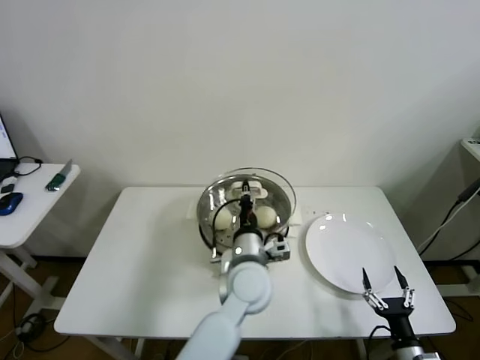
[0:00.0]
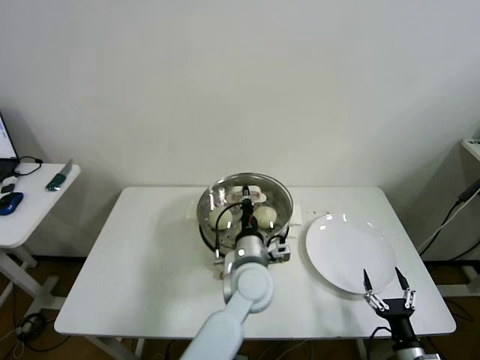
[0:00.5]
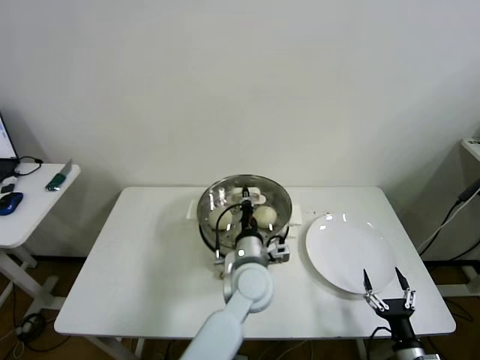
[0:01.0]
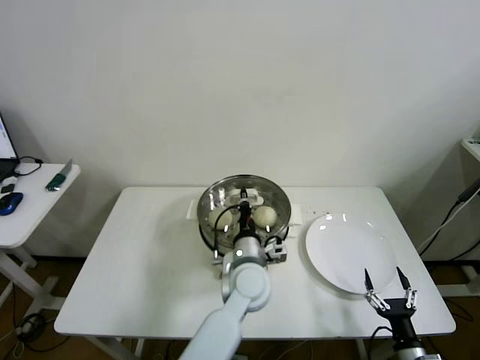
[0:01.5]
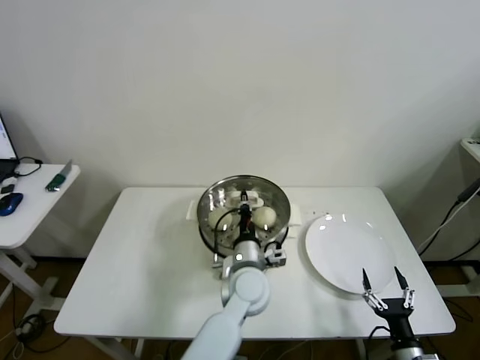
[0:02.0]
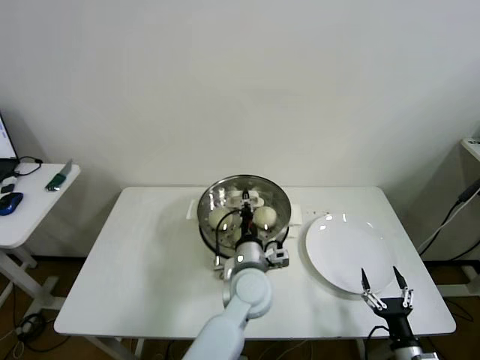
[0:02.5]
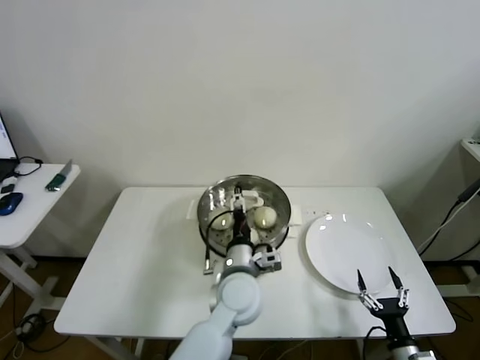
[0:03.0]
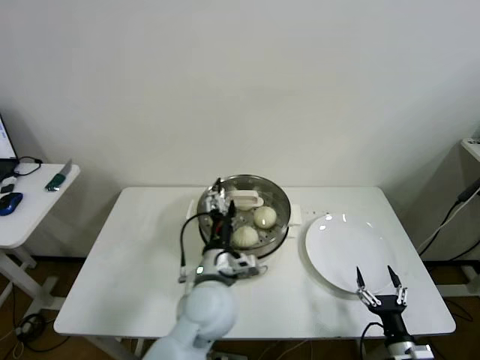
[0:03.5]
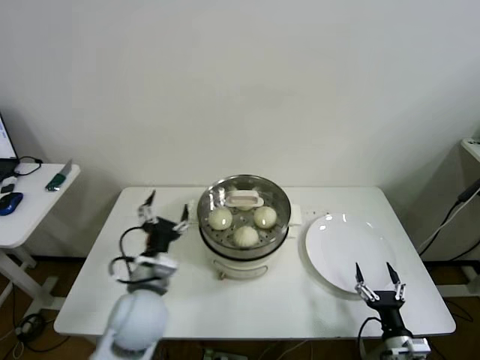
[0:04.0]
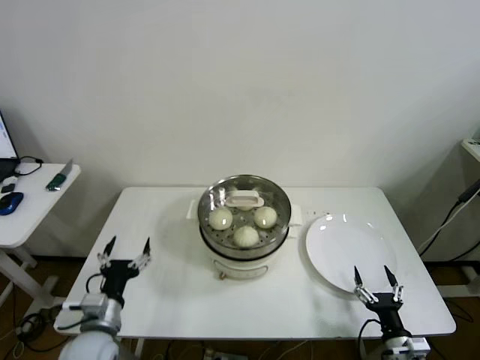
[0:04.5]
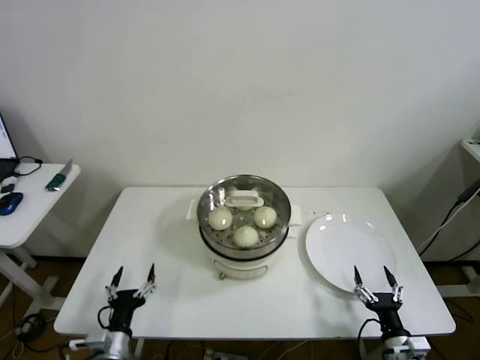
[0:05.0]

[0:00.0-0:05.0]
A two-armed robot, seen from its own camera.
Step, 0.0 to 2.0 s: Place the pot lid on the steamer with left gripper.
0.0 to 2.5 s: The grippers move only a little.
2.5 to 5.0 s: The left gripper goes roughly 35 cm to the left and backward, and opens.

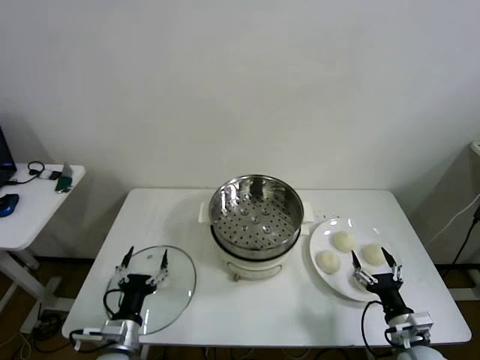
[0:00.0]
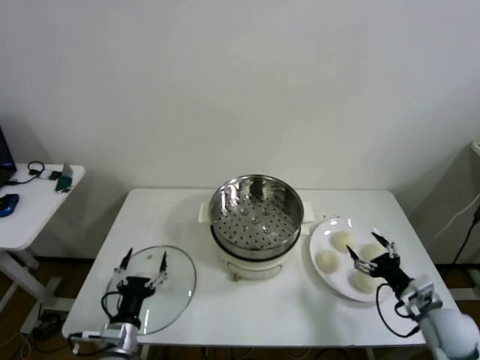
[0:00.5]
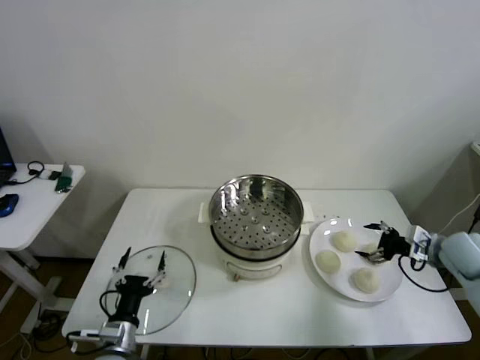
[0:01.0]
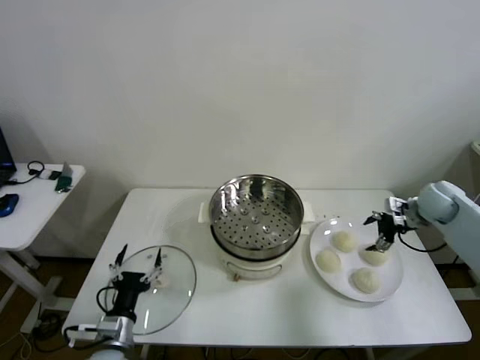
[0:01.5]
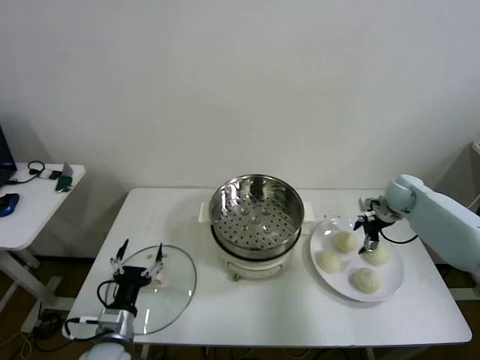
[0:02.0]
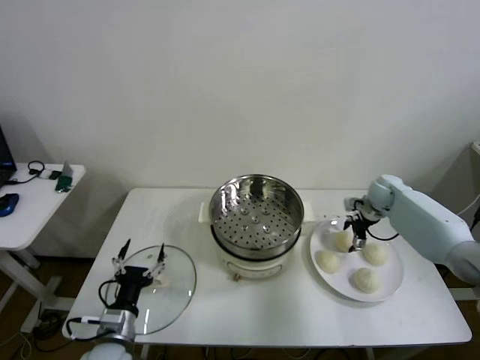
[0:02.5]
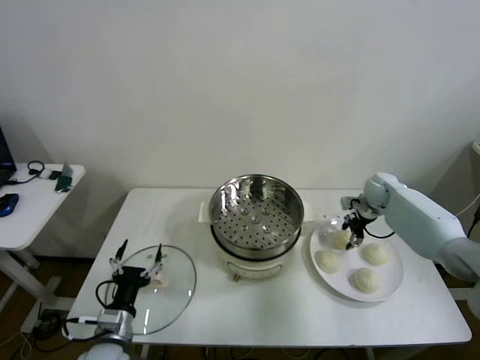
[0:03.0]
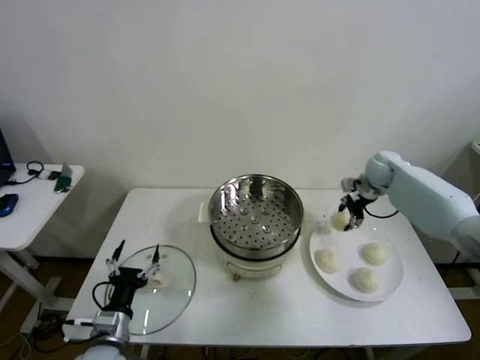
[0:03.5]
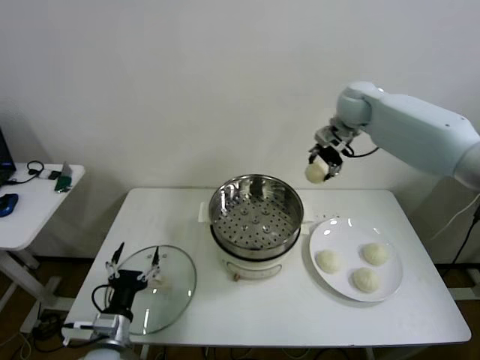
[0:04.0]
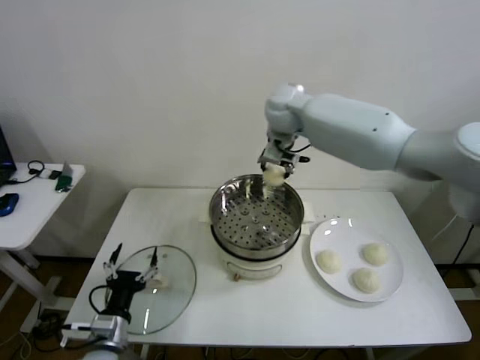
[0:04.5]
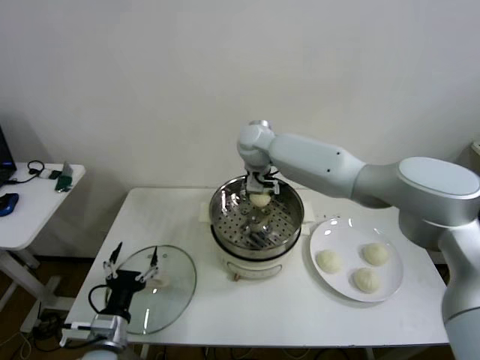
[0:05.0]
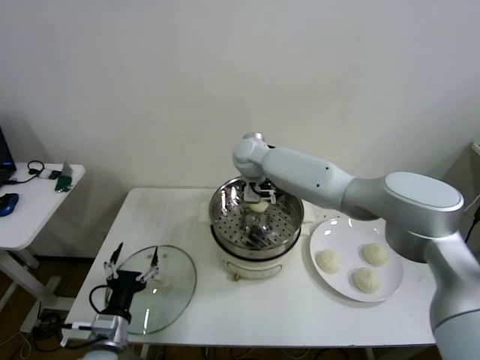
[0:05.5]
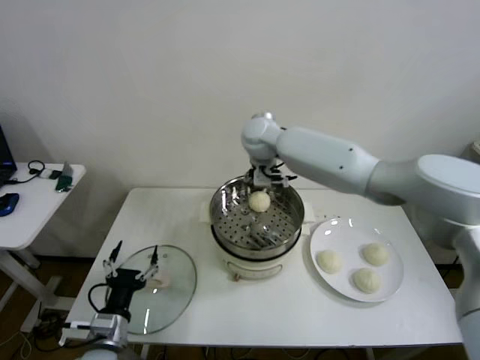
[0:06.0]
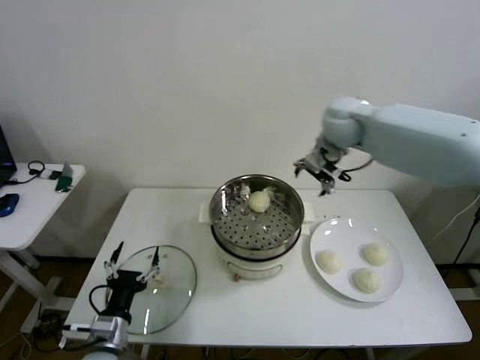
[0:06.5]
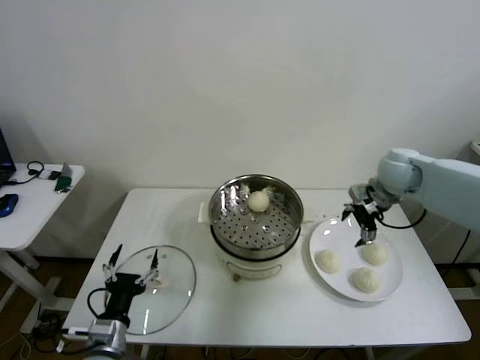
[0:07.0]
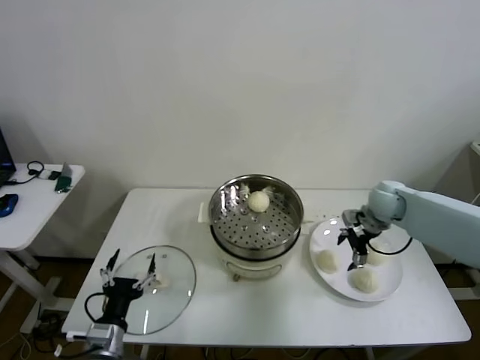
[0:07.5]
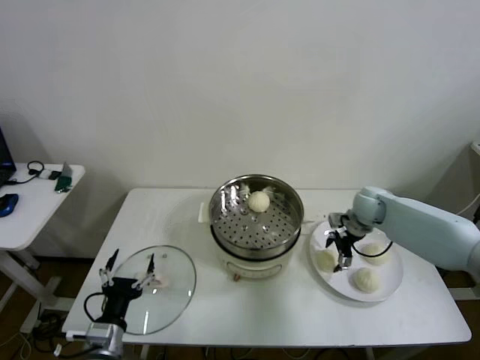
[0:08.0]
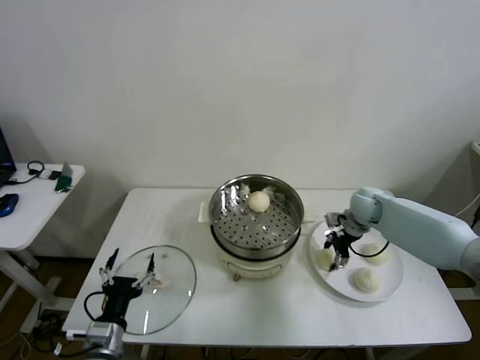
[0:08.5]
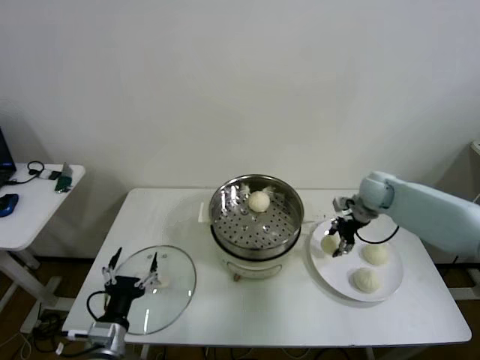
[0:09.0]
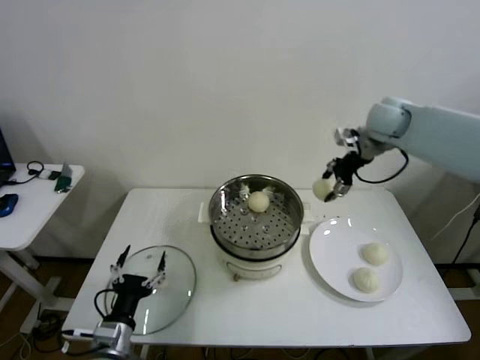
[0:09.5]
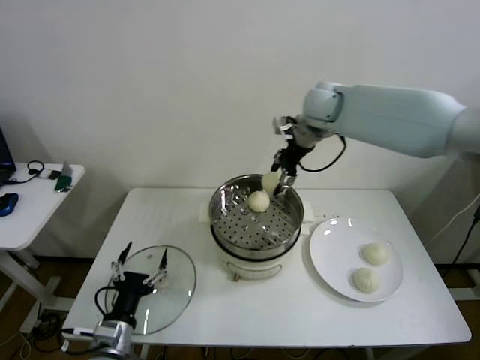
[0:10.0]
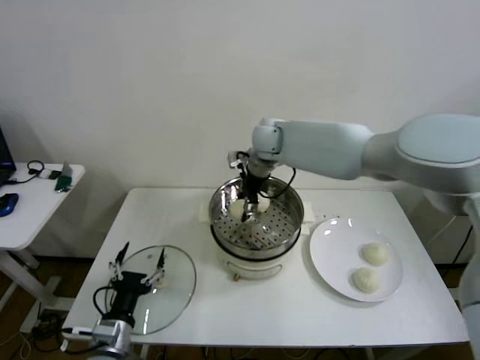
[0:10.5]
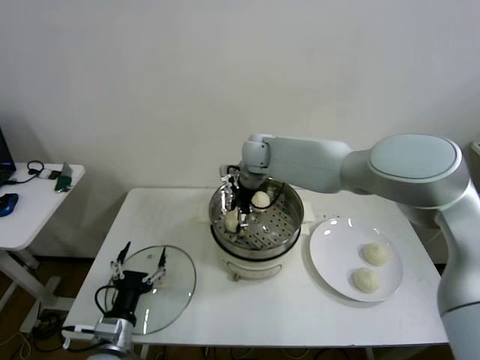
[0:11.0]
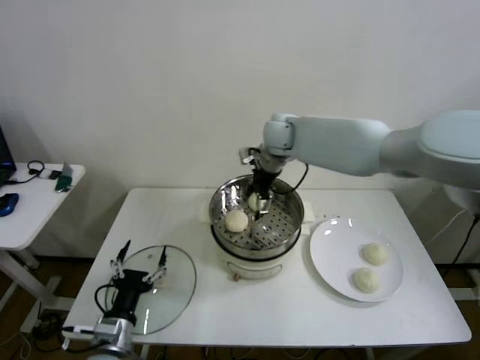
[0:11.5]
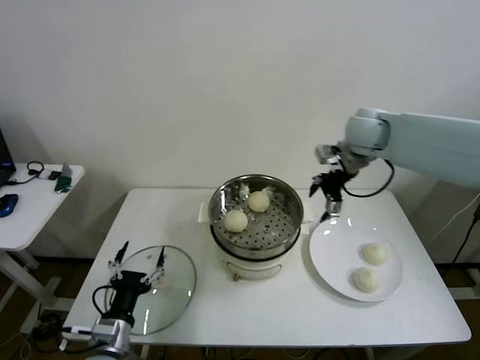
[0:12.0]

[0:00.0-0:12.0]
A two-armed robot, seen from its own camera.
Step, 0.0 to 3.0 s: Grasp the baozi in the plate with right gripper.
Step, 3.5 to 5.5 s: Place the baozi on the steamer with right gripper.
Step, 6.0 to 8.5 s: Grasp the baozi in the plate with right gripper.
Step, 9.0 to 11.0 s: Place the baozi on the steamer with right gripper.
2.0 to 4.0 s: The right gripper goes roughly 35 cm upward and to the left, and closes.
4.0 to 6.0 s: The right gripper heads to the left, covering approximately 15 cm, and opens its fingers.
6.0 to 8.0 s: The right gripper heads to the right and downward, covering about 35 cm.
8.0 to 10.0 s: The right gripper goes roughly 30 cm upward and to the left, and closes its fingers.
10.0 to 12.0 s: The right gripper goes roughly 15 cm to the right, and opens up.

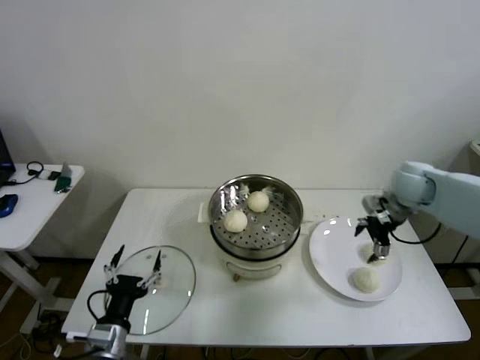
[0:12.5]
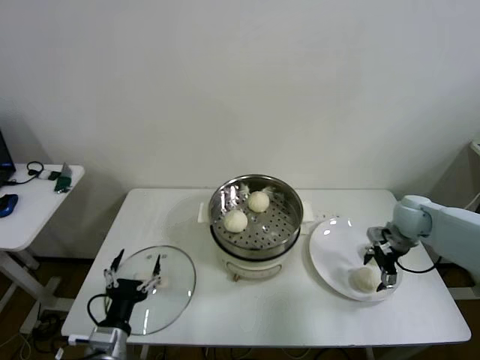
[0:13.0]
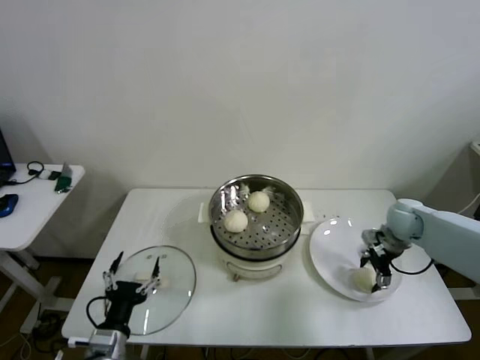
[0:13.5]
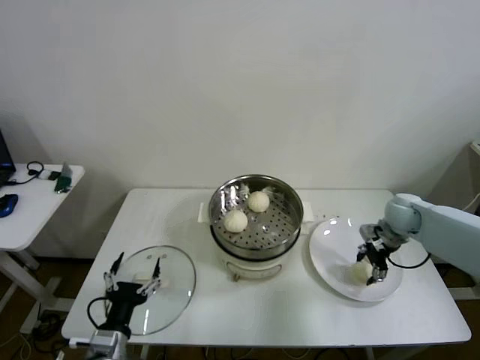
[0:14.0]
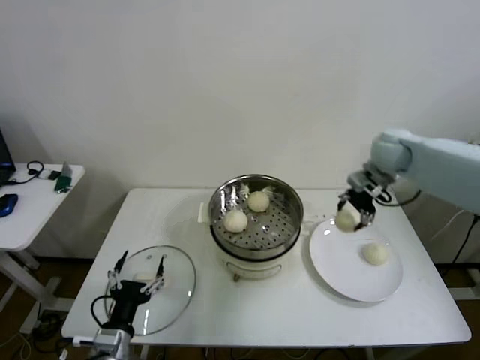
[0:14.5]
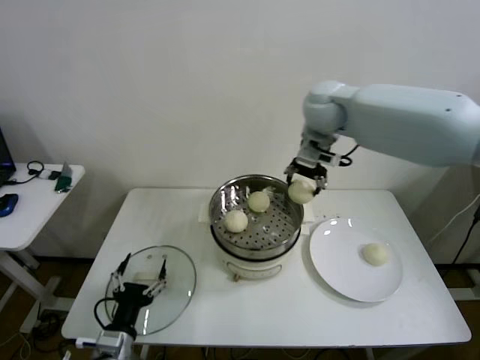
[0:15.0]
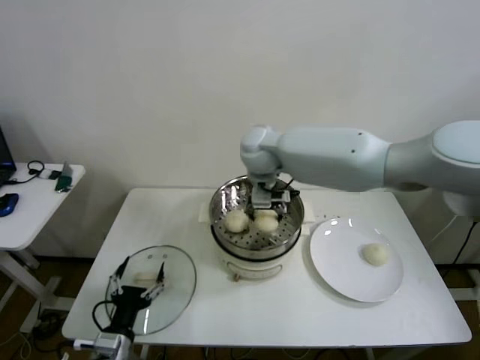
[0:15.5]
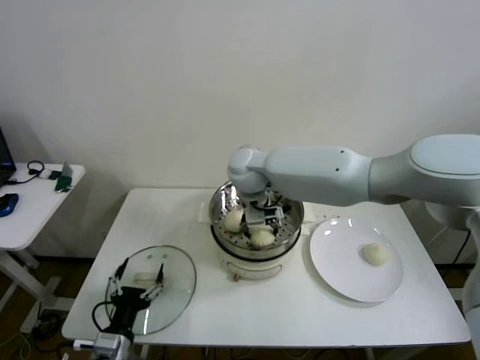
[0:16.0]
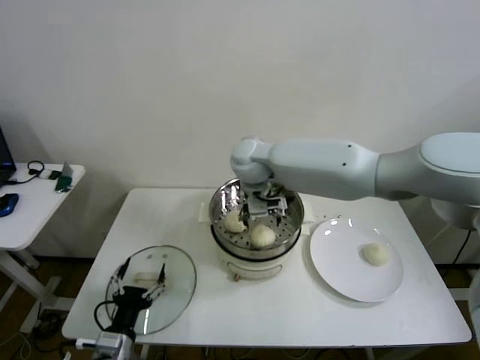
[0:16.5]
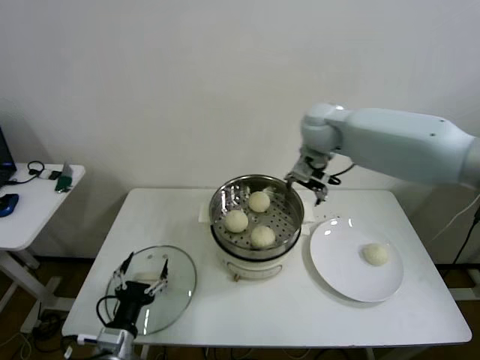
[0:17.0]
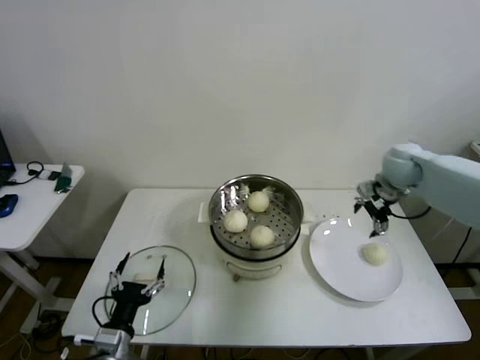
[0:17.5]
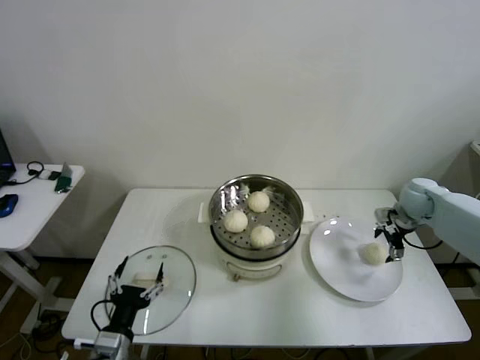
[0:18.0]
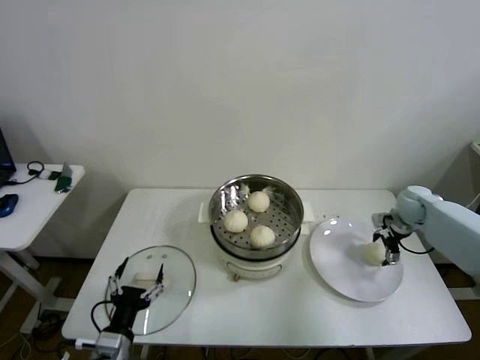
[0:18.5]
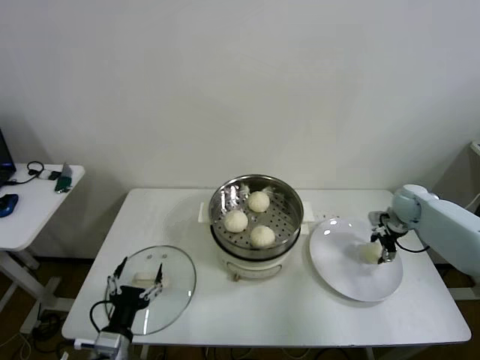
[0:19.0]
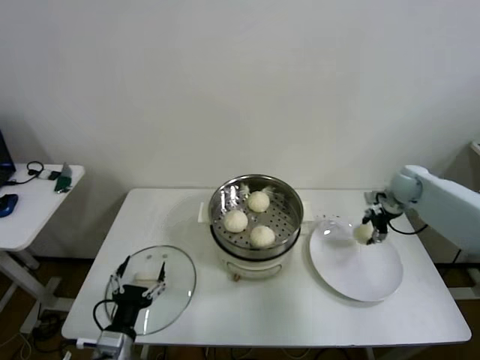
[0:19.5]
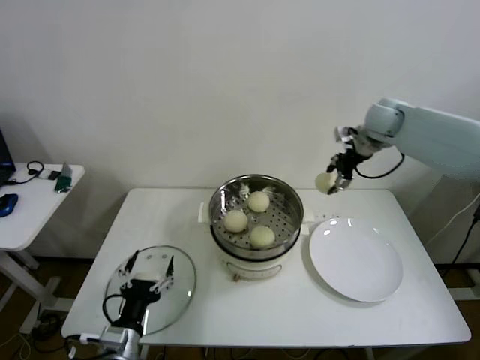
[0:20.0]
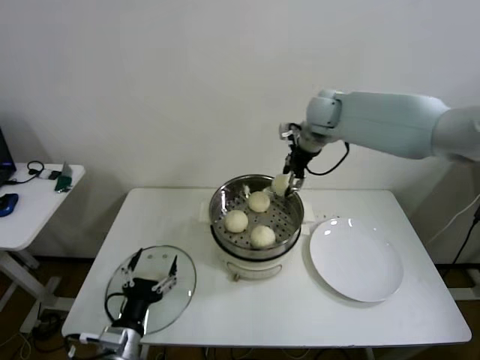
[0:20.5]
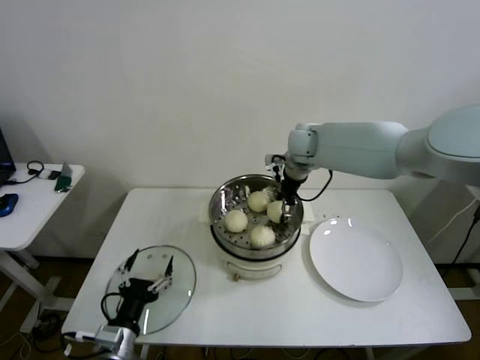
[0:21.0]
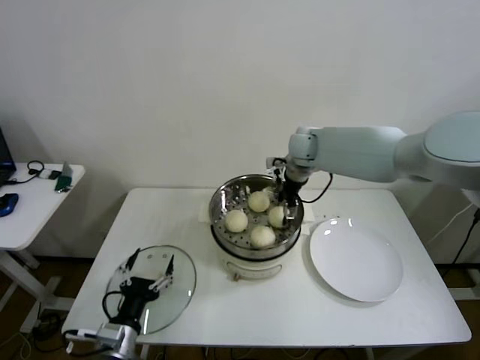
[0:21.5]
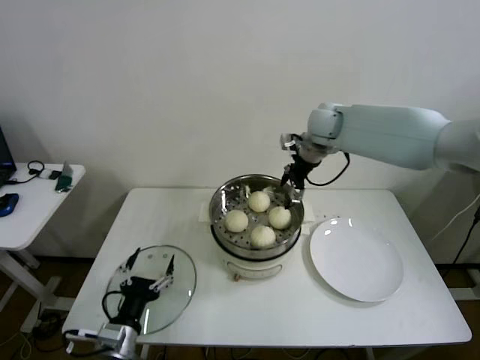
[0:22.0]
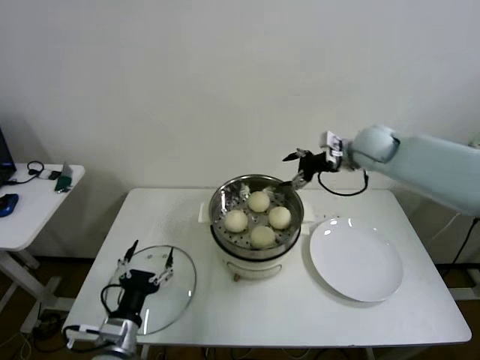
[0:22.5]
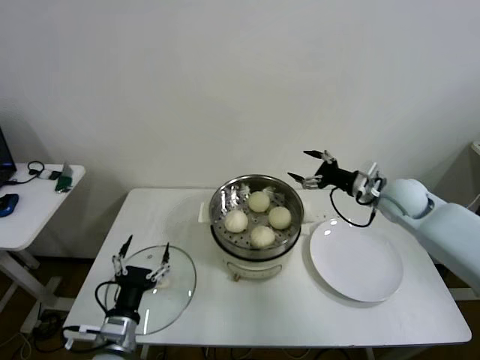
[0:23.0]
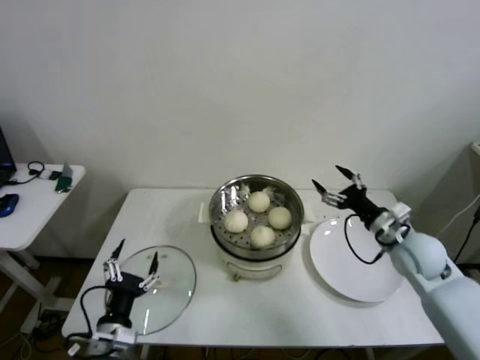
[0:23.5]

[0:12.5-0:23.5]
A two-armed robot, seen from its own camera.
Step, 14.0 to 16.0 s: Place the baozi on the steamer with right gripper.
Step, 16.5 to 19.0 s: Grasp the baozi in the plate with right gripper.
Step, 19.5 to 21.0 s: Place the baozi on the steamer with right gripper.
12.5 to 14.5 s: The right gripper is displaced upward, to the left and forward by roughly 15 cm, and closes its fingers.
14.5 to 16.0 s: The right gripper moves to the left, some 30 cm.
16.0 to 18.0 s: The right gripper moves to the right, roughly 40 cm, and opens.
18.0 to 20.0 s: The right gripper goes about 25 cm upward, to the left and forward, and closes up.
20.0 to 21.5 s: The right gripper goes about 20 cm to the left and downward, and opens its fingers.
21.5 to 23.5 s: The right gripper goes approximately 35 cm backward, to the right and downward.
